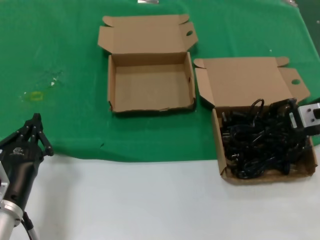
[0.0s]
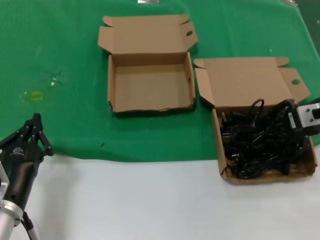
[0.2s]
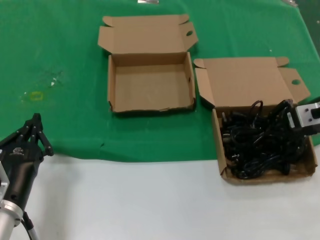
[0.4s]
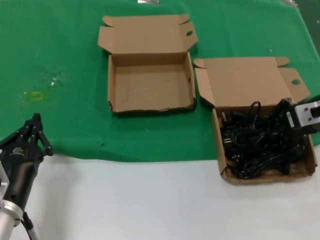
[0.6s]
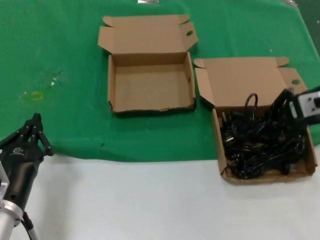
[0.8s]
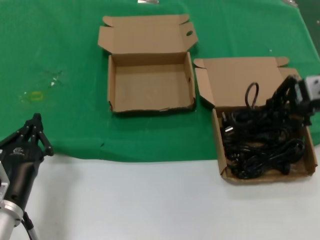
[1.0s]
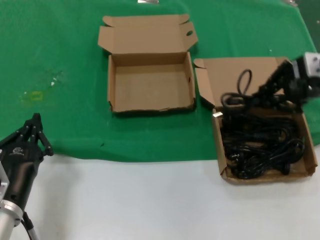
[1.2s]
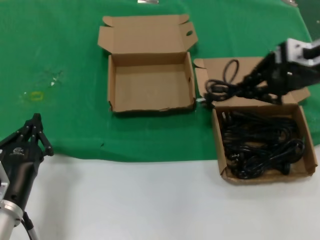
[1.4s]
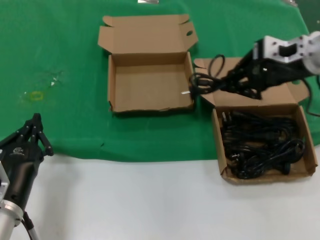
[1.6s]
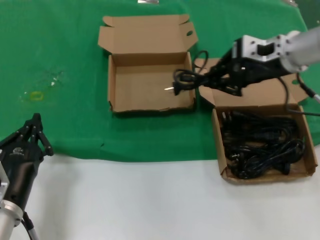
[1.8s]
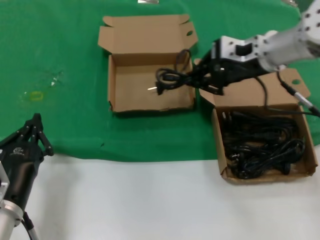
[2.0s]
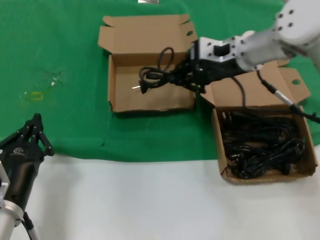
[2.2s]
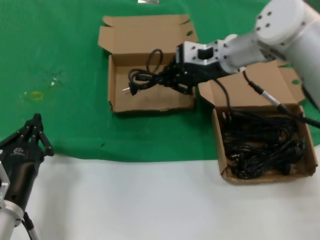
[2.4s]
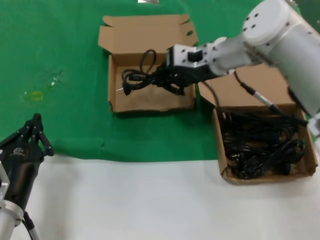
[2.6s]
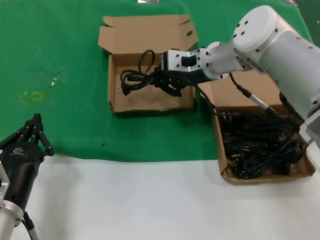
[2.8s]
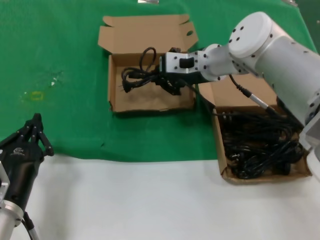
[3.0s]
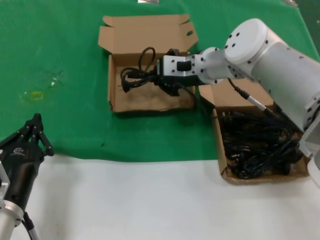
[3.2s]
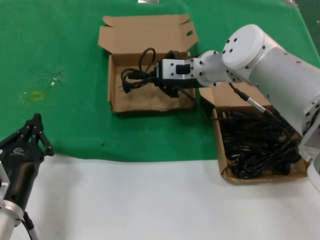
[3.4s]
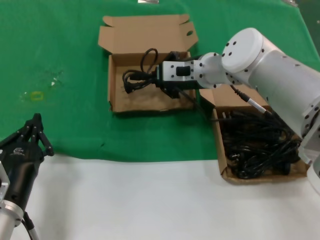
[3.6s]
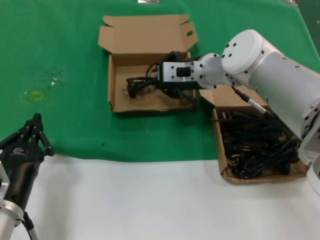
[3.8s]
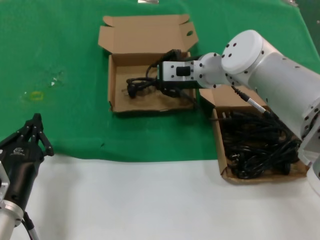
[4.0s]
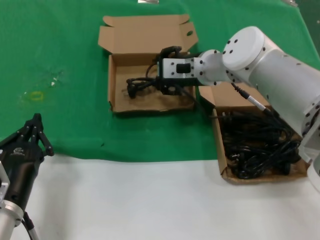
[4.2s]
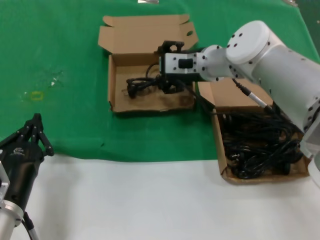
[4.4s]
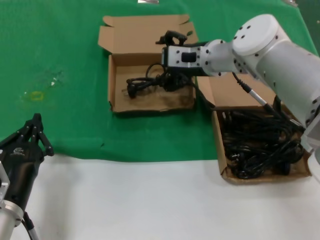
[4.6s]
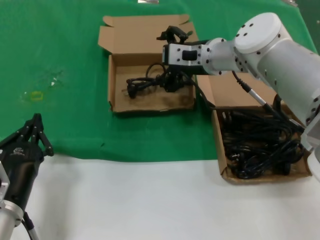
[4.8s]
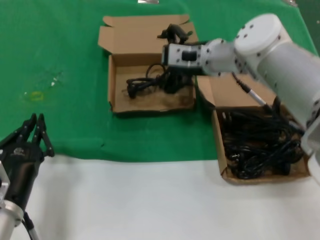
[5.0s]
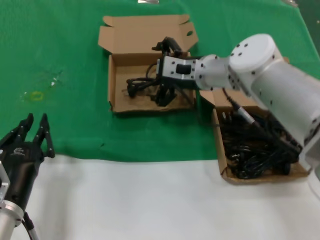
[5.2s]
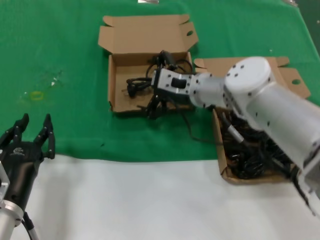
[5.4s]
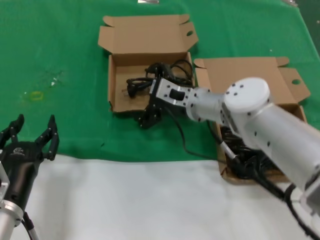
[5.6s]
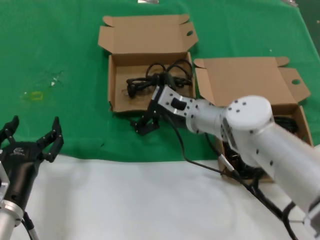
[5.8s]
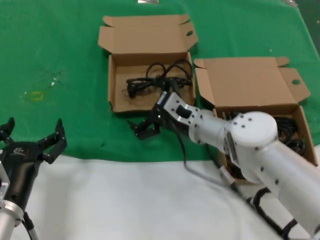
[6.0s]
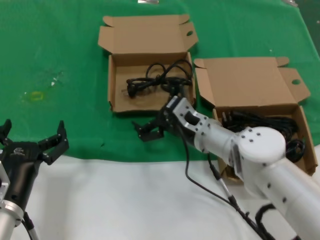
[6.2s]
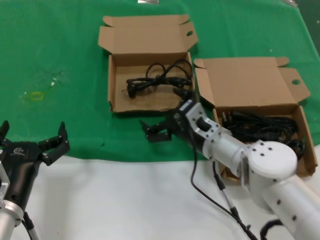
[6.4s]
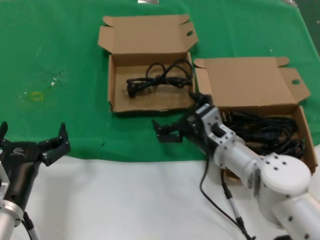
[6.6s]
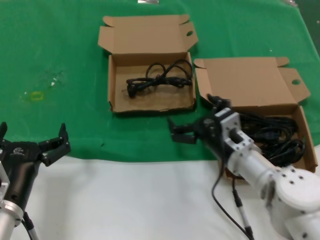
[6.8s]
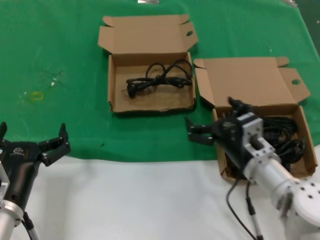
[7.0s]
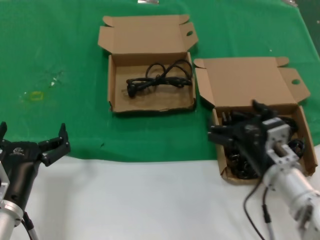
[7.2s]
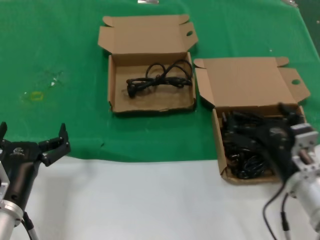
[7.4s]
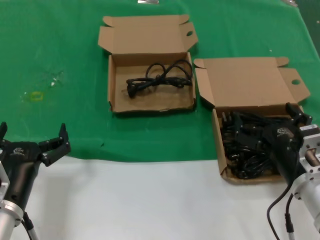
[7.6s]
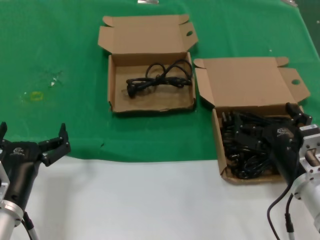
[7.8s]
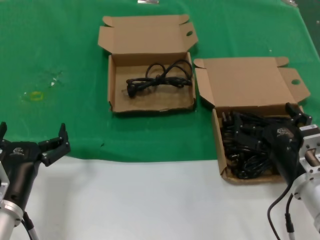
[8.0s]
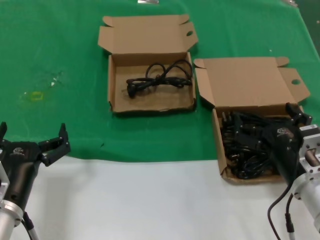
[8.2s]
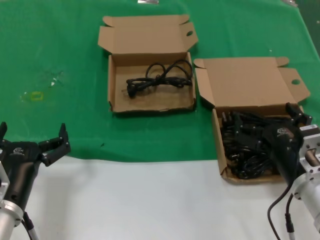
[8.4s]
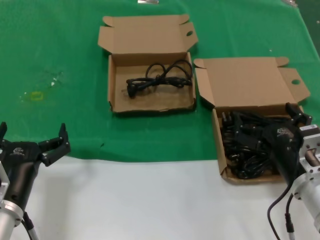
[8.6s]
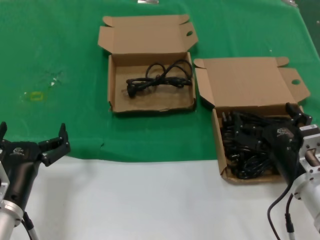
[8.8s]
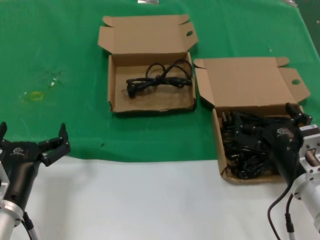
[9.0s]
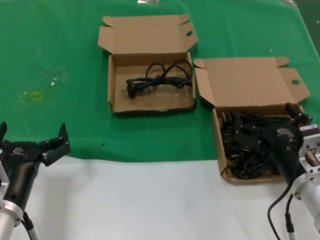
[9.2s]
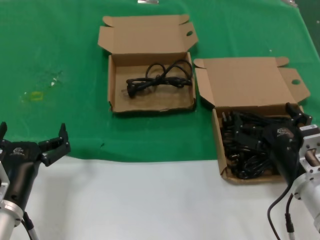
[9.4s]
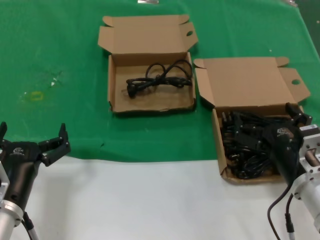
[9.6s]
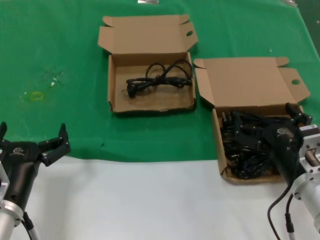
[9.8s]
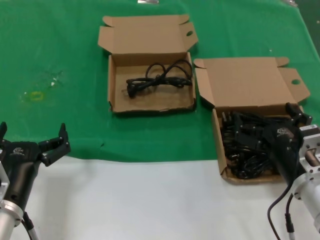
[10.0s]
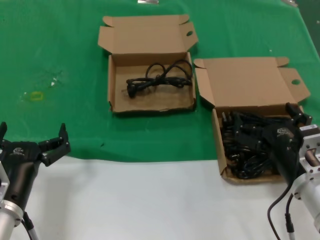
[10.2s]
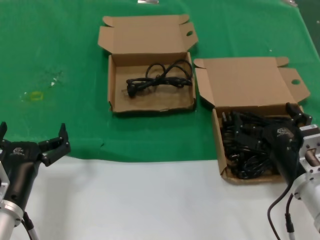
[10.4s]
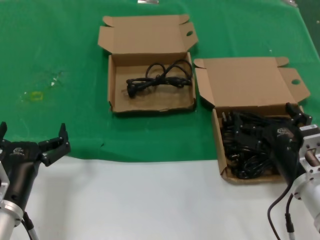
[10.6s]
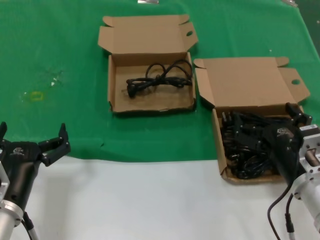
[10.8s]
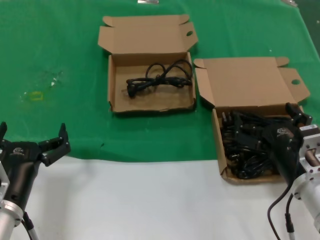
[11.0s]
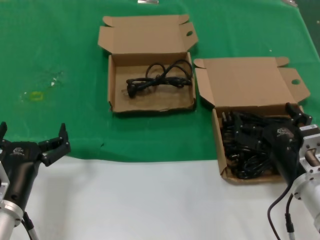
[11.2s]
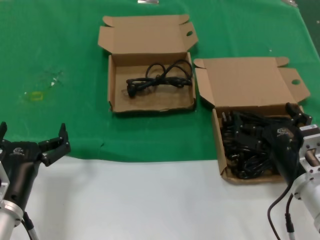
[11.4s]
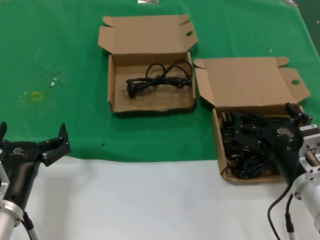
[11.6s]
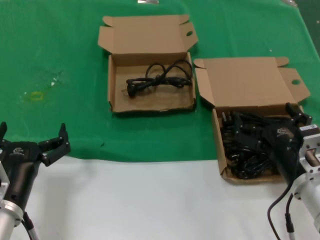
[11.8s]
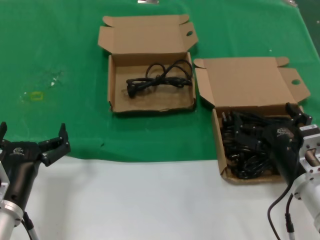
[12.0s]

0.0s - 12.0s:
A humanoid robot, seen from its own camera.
Task of the whole recording: take the parts from the box containing them and put them into an empty box.
Step, 0.4s - 3.8s: Place the data cable in the another box.
0.0s - 1.6s: The right hand moves upward and to the left, roughly 10 cm.
1.6s - 3.0s: The right hand shifts some 20 cm to the left and forward.
3.0s - 4.4s: There are only small adjustments of the hands.
4.4s - 6.0s: The right hand goes some 15 cm downward and backward.
6.0s - 7.6s: The right hand moves backward and to the right, about 25 cm.
7.6s - 12.0s: The two hands keep their place.

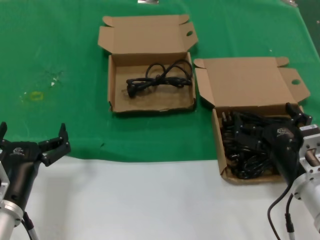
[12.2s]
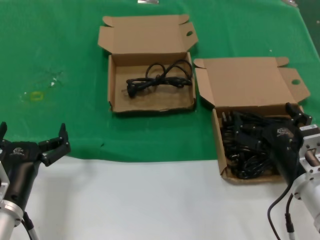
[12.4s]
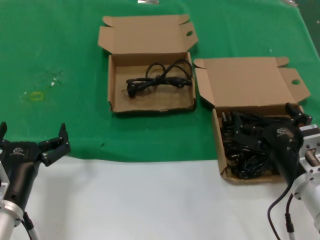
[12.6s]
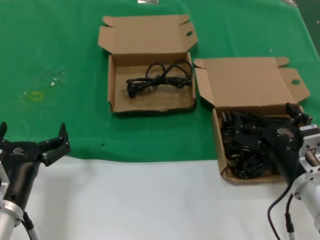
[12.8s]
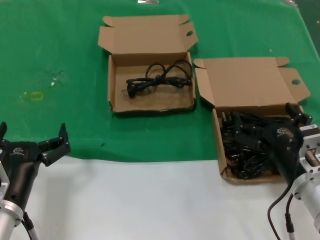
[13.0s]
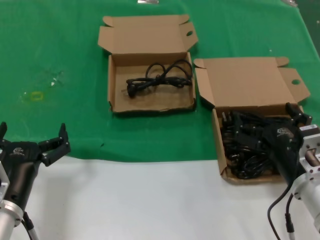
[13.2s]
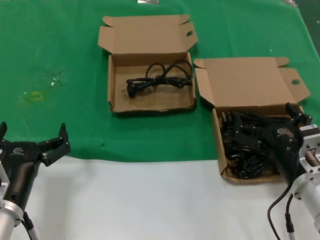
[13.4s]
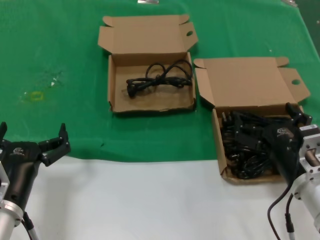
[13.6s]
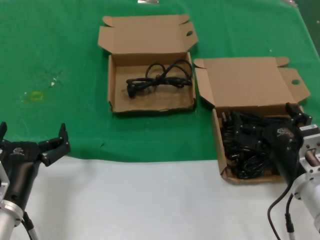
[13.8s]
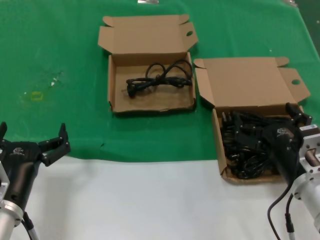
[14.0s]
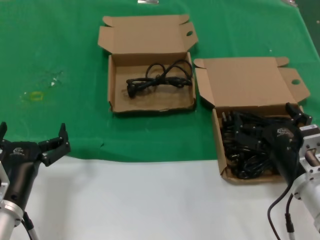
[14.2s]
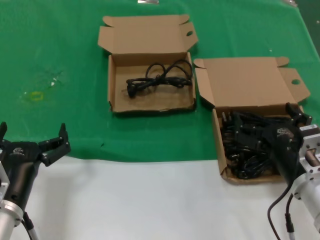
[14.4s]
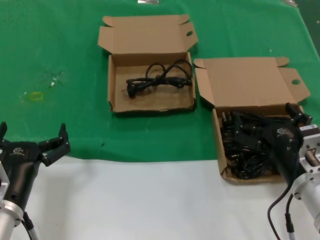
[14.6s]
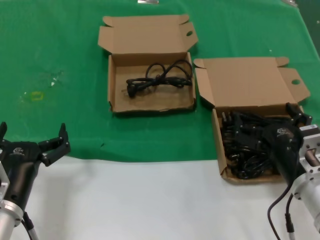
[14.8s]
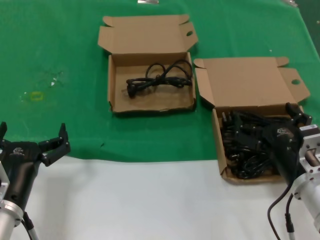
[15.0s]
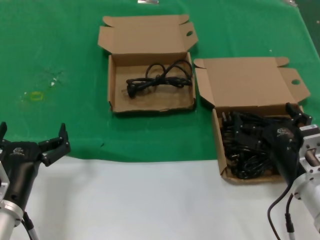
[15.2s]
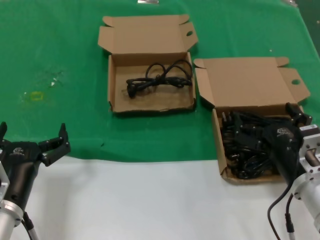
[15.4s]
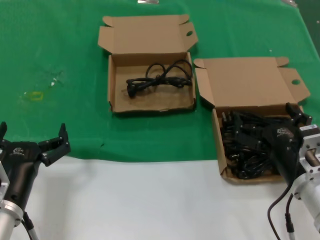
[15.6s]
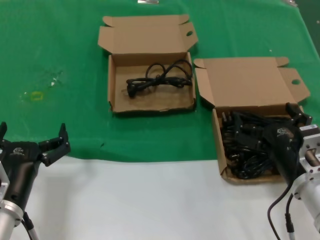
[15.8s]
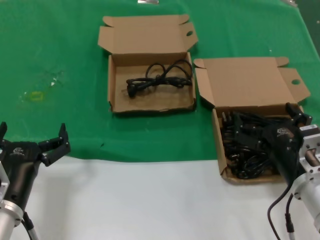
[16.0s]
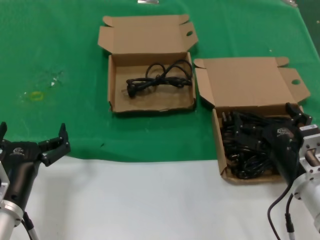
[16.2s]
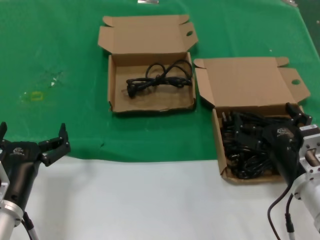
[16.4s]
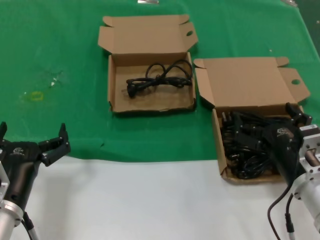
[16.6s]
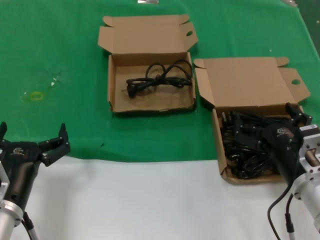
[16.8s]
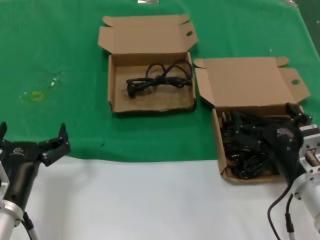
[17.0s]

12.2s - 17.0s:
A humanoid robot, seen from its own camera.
Task of the whole recording: take the parts from the box containing them and put them into an empty box.
12.2s - 17.0s: The two hands keep their place.

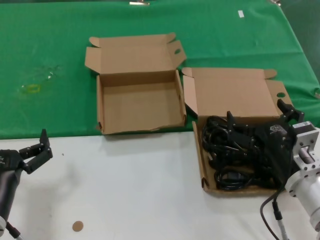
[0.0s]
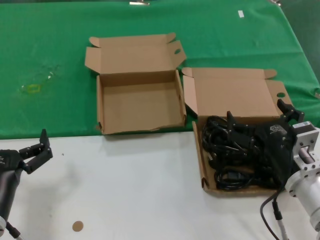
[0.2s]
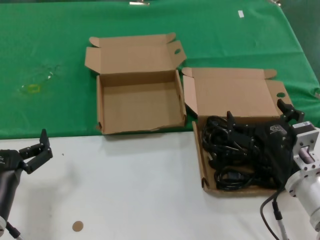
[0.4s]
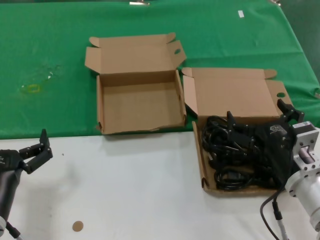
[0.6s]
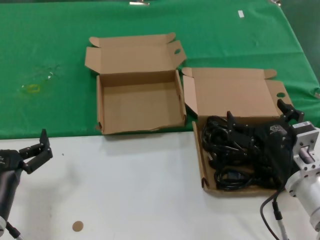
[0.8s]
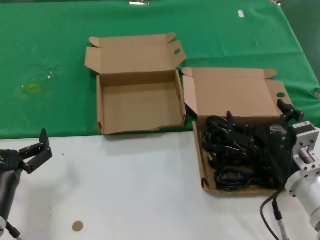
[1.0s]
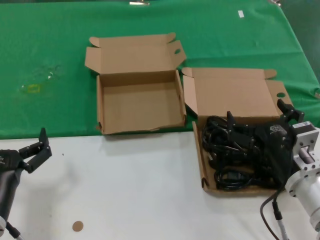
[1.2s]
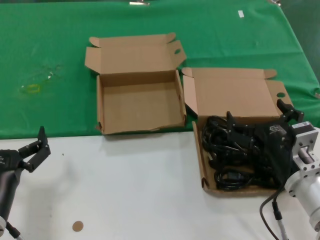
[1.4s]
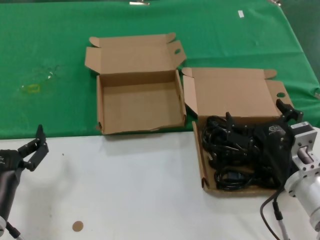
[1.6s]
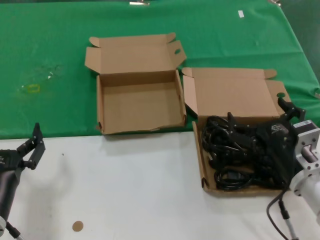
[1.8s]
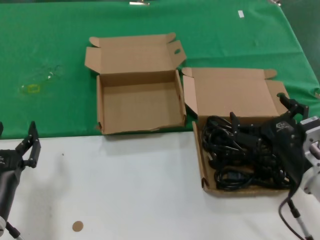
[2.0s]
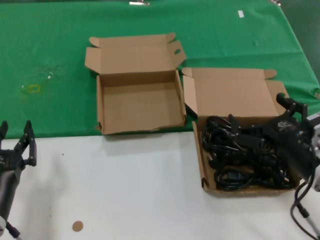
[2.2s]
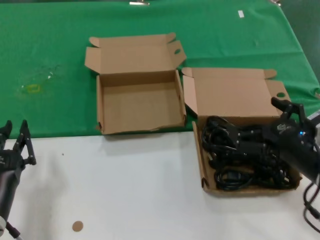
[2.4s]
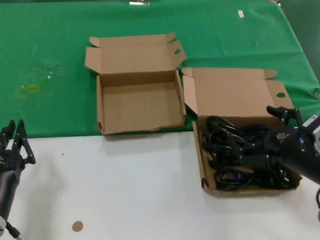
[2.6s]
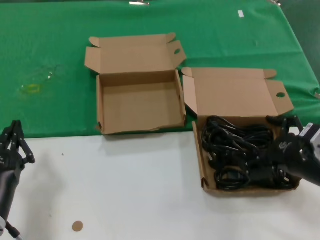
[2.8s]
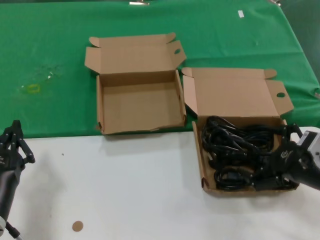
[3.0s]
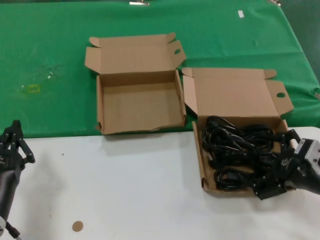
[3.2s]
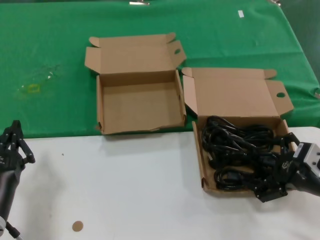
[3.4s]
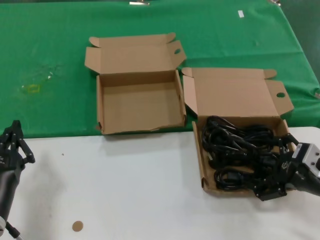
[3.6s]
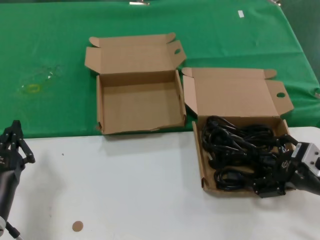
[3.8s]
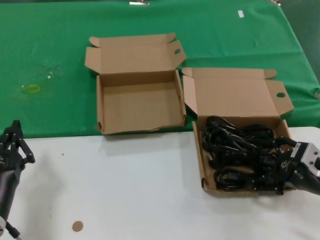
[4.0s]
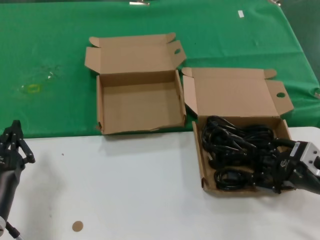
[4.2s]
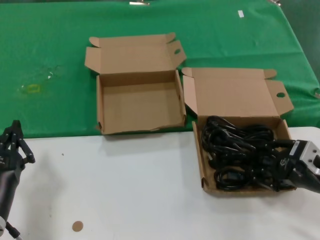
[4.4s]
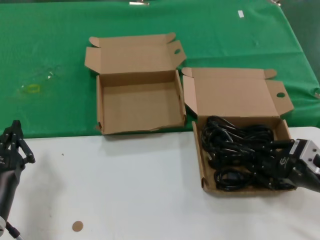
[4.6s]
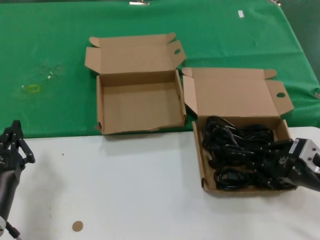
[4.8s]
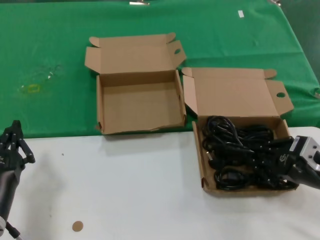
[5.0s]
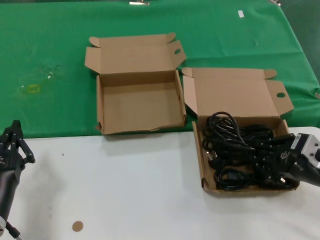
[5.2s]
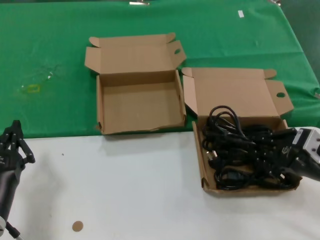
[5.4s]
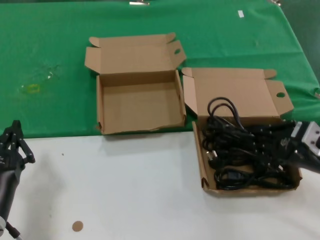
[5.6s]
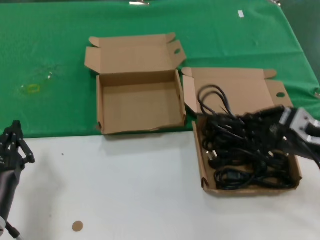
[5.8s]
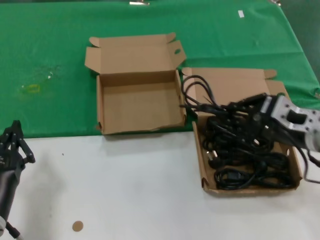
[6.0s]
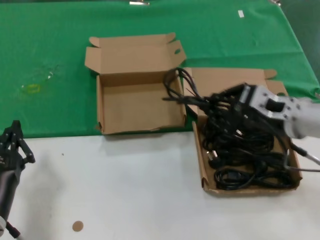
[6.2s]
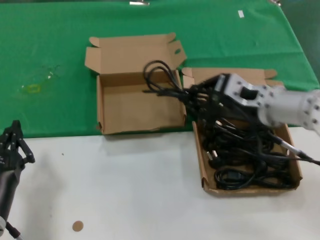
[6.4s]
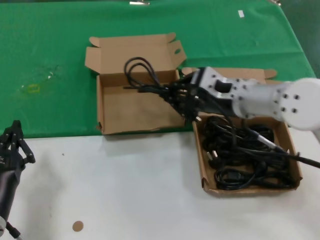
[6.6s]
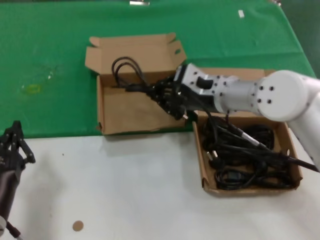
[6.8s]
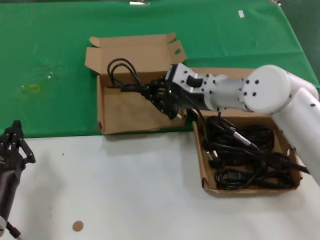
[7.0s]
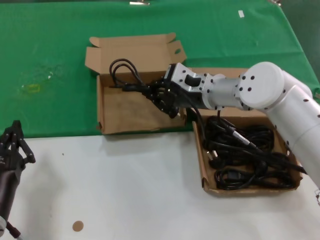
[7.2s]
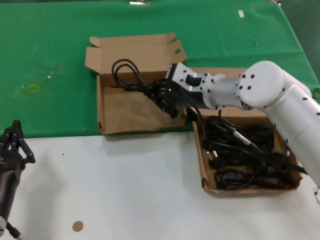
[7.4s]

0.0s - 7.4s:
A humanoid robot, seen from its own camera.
Task of the whole recording: take the parts from the box containing them and put them into an empty box.
Step, 0.0s - 4.8s: Grasp the data cable.
0.0s - 1.4s: Both hands stay about where they are.
1.4s - 3.0s: The right hand heads to the right and upward, covering some 10 cm.
3.0s - 4.4s: The hands make only small movements.
4.4s - 6.0s: The right hand is displaced upward by roughly 5 cm.
6.0s - 7.4s: The right hand is displaced forward and to the left by about 20 cm.
